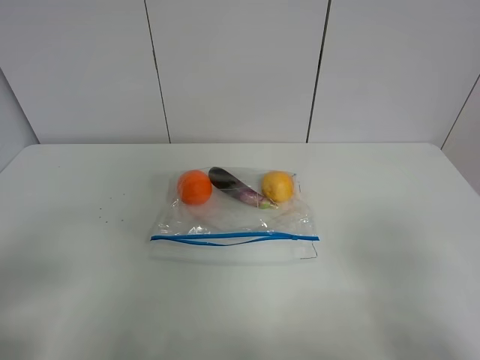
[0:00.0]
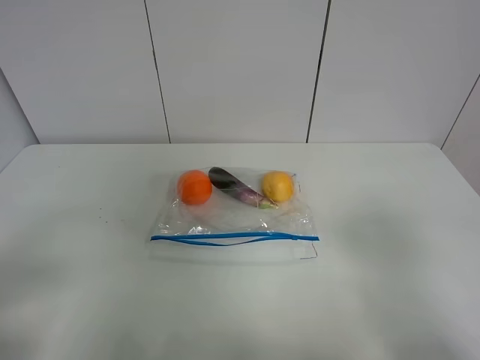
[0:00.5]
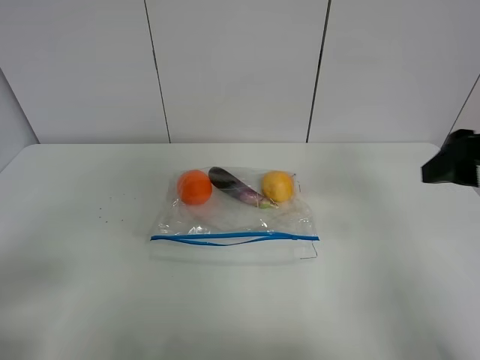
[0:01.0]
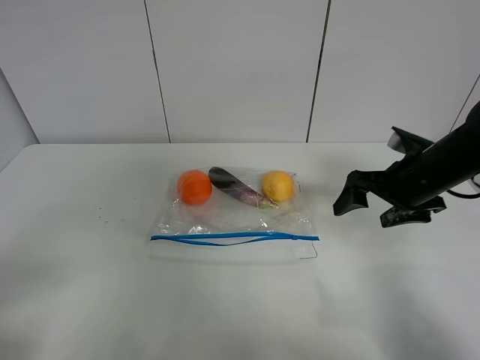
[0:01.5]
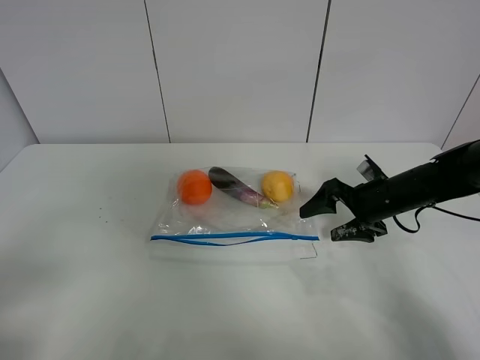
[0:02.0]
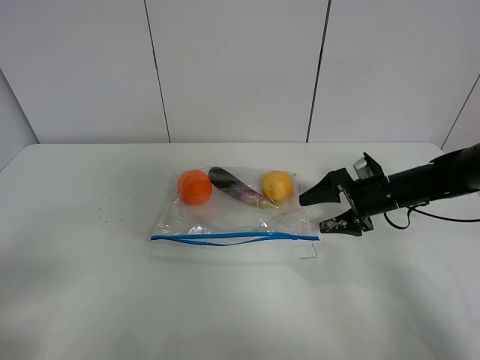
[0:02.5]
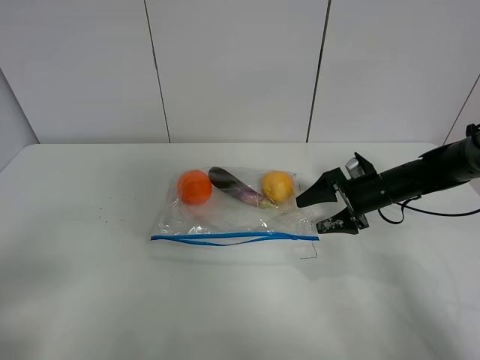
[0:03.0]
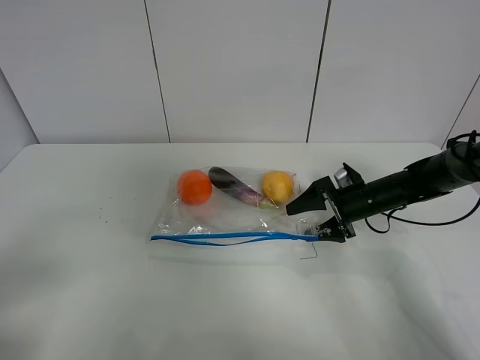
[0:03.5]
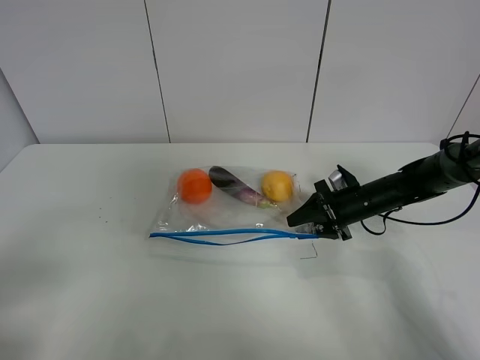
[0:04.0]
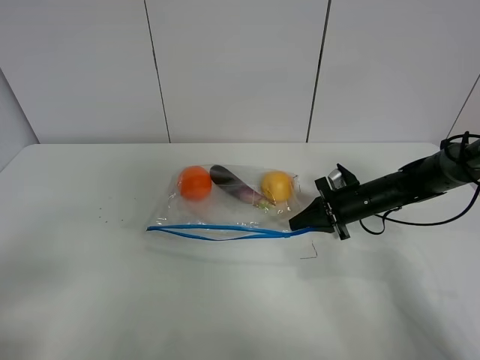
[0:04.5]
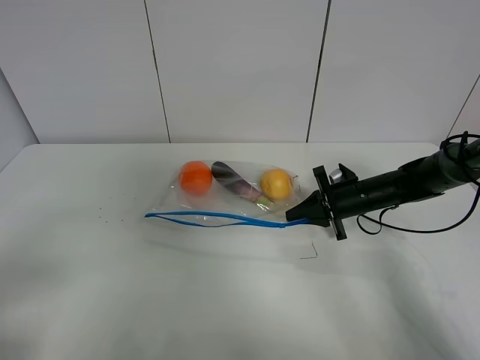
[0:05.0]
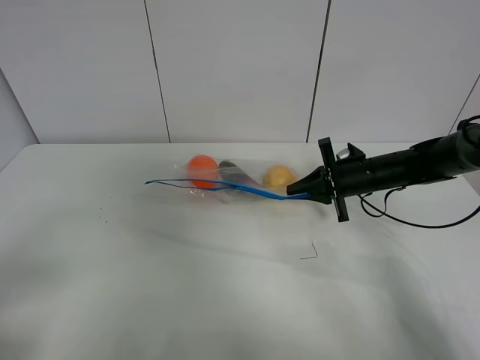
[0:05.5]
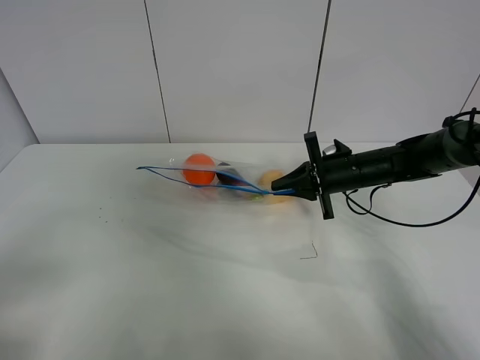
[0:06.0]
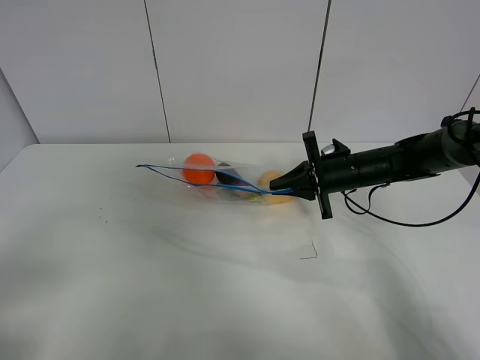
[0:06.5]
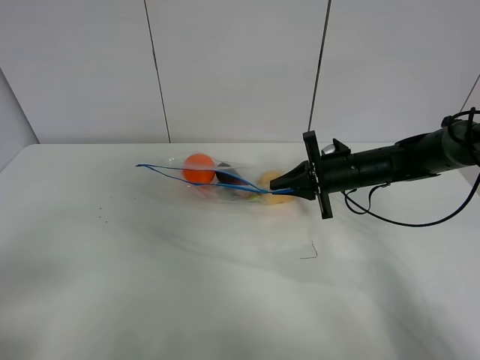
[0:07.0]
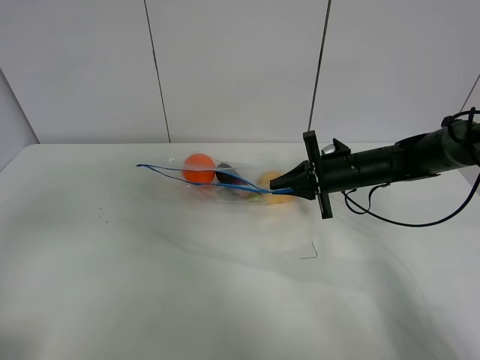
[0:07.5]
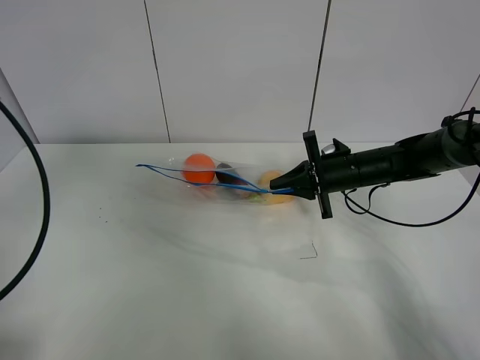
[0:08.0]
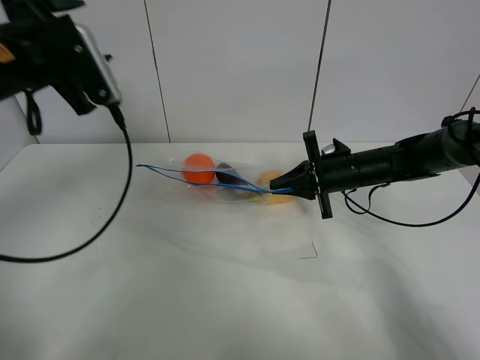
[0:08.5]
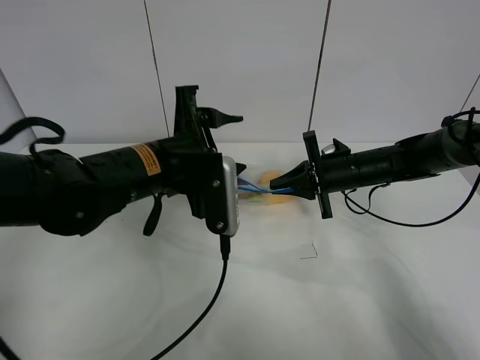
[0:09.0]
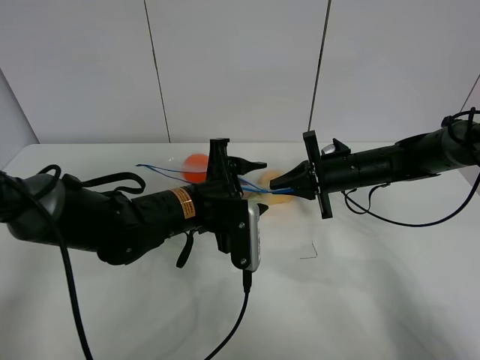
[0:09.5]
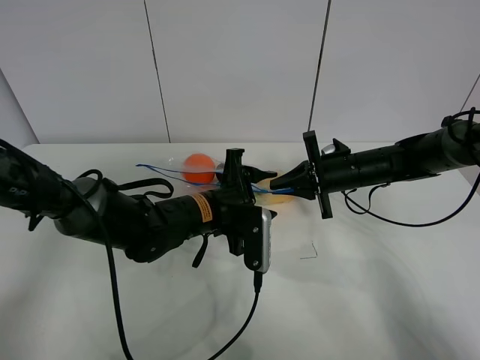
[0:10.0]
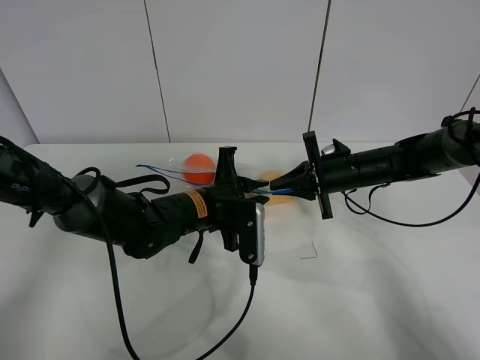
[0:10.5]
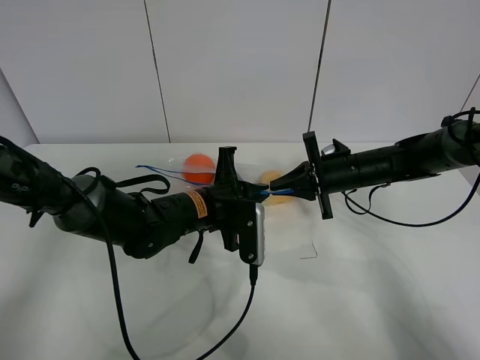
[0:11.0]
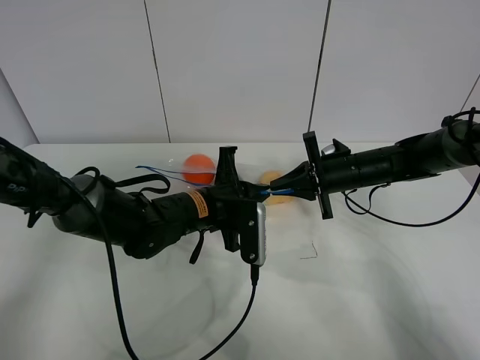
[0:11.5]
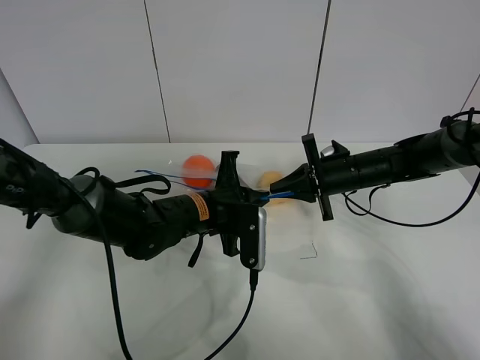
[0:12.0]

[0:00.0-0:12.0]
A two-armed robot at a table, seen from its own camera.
Step, 0:00.0 to 0:04.5: Grasp the fruit bag with right gripper.
Step, 0:05.0 to 0:06.0: Lift the fruit bag with your right gripper.
0:00.0 to 0:02.0: The right gripper is displaced forward and downward by about 35 cm.
0:02.0 to 0:04.0: The right gripper moves roughly 5 cm, and closes.
0:04.0 to 0:06.0: The right gripper travels upward by some 5 cm, and closes up.
0:06.0 to 0:08.0: The left gripper is displaced forward and upward by about 25 cm.
0:08.0 to 0:10.0: The left gripper heads to the right and downward, covering roughly 35 cm.
0:10.0 to 0:12.0: The left gripper closes.

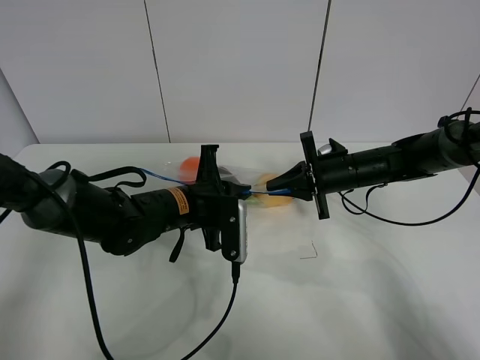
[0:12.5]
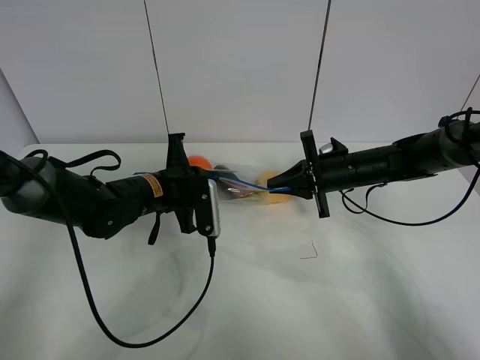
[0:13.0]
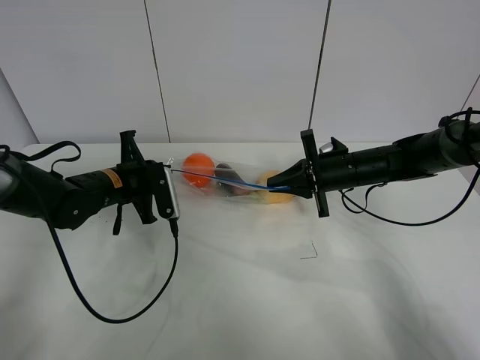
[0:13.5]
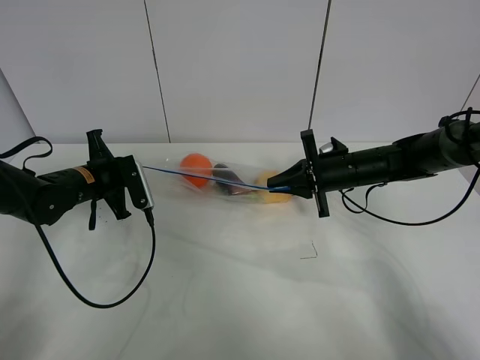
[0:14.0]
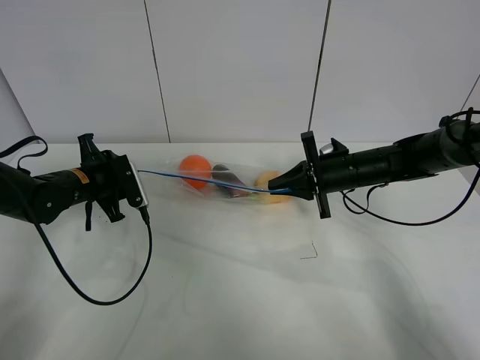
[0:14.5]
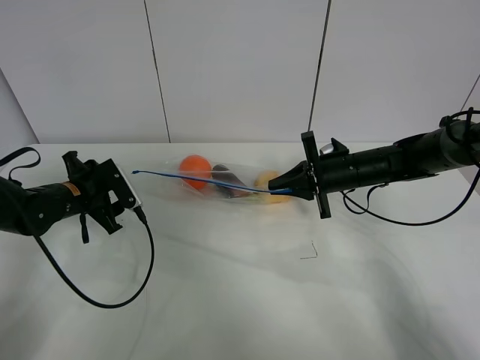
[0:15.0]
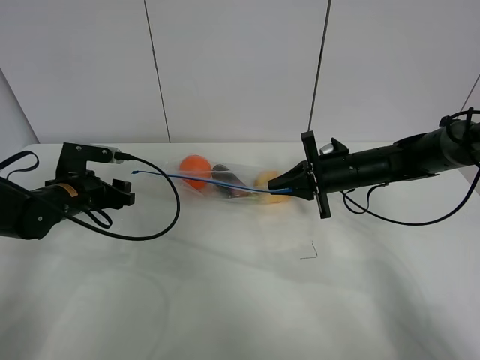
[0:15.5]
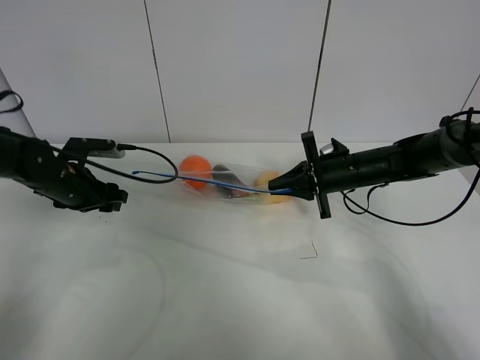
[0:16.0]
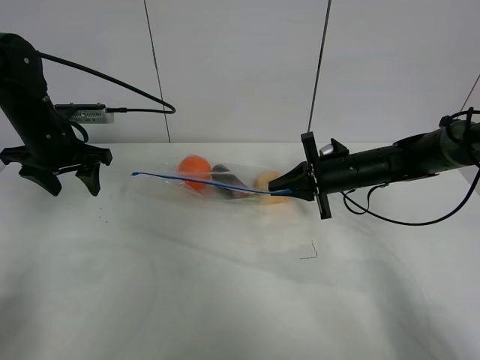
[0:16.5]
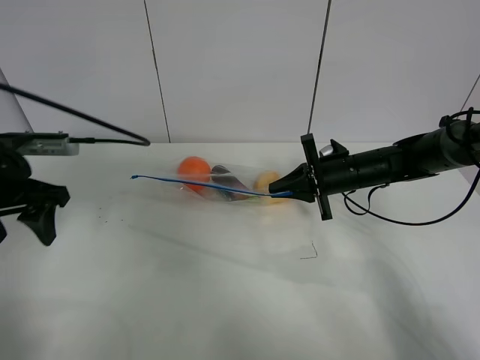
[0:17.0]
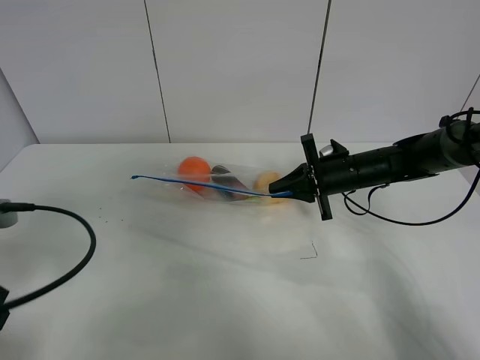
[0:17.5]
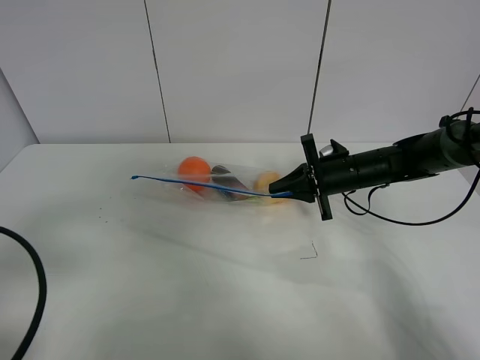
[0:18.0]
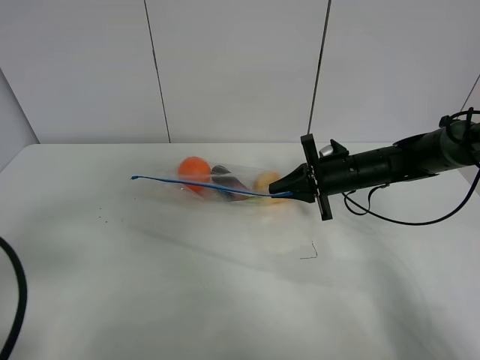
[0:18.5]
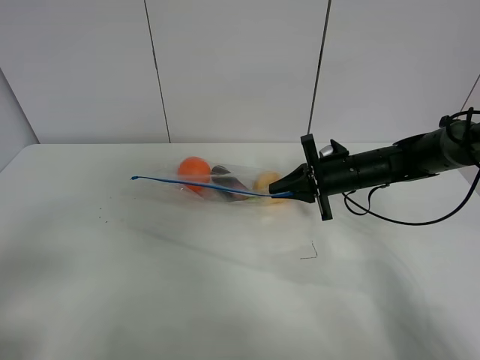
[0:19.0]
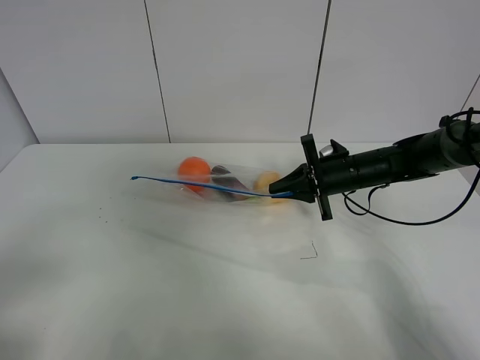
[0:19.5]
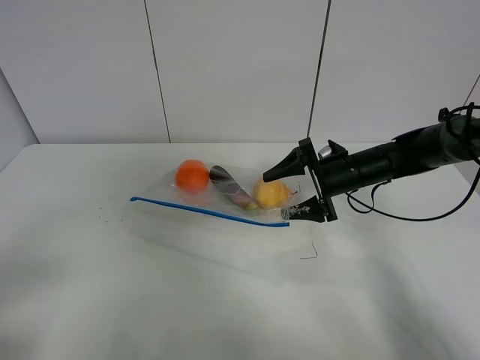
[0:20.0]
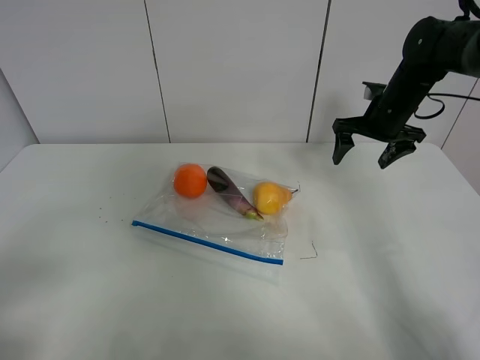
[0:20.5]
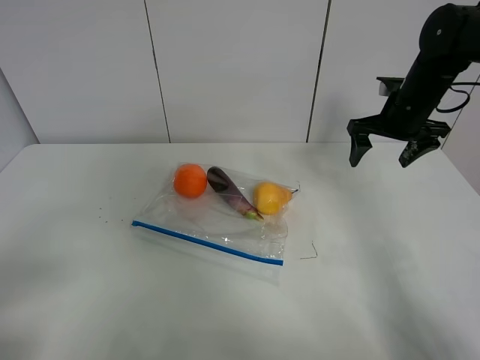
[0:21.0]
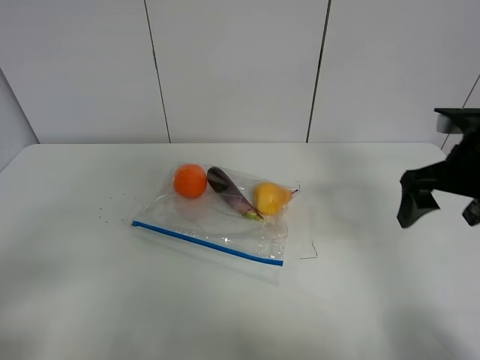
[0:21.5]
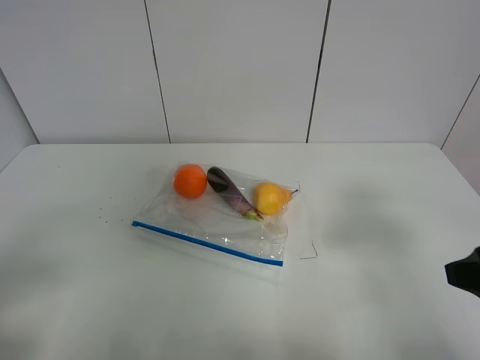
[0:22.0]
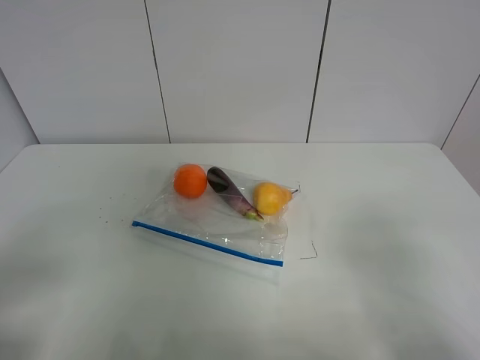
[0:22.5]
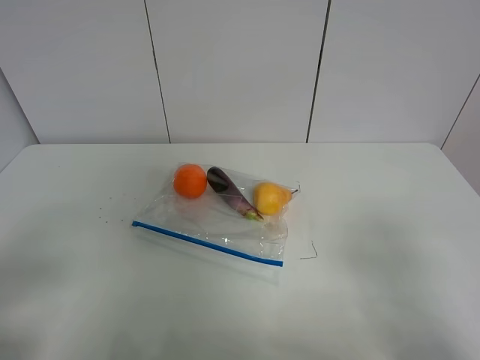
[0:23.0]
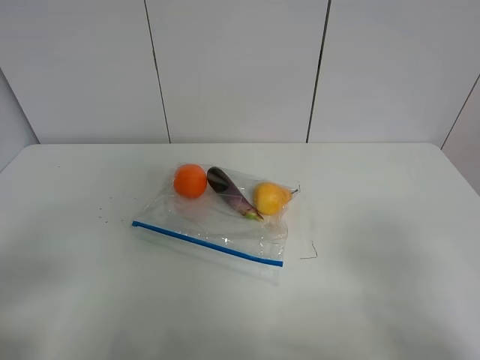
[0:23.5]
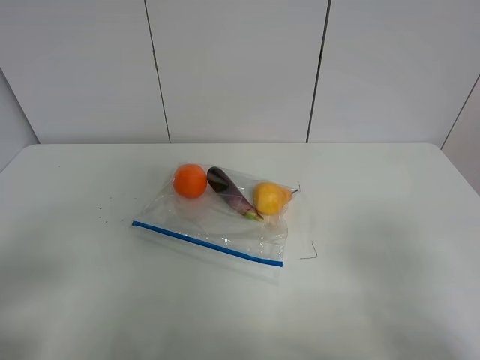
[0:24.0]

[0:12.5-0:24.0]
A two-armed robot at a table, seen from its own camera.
Step, 0:12.5 to 0:14.5: Pull the fruit bag with left gripper.
0:12.5 to 0:14.5: The left gripper is displaced to the left by approximately 20 cm, and opens its fingers.
0:14.5 to 0:16.5: The left gripper heads upward, covering approximately 10 cm.
0:16.5 to 0:18.5: The left gripper heads backward, covering roughly 30 cm.
0:18.5 to 0:20.0: The left gripper goes approximately 5 cm backward. Meanwhile the right gripper opens up.
0:20.0 to 0:22.0: The right gripper goes roughly 30 cm backward and upward.
0:22.0 to 0:24.0: The right gripper shifts roughly 10 cm backward.

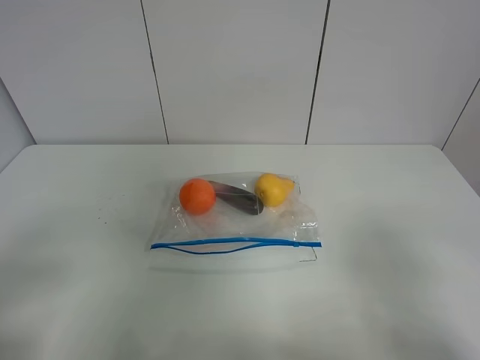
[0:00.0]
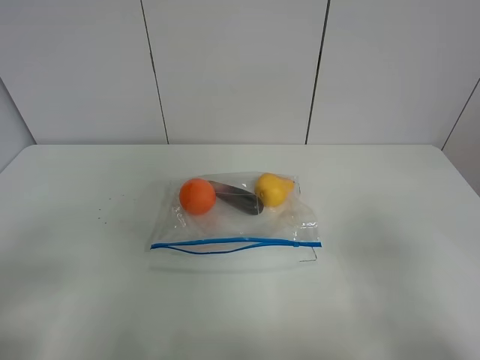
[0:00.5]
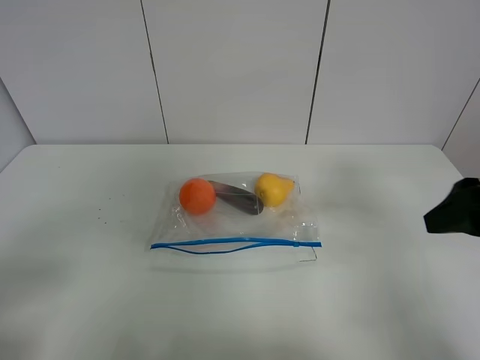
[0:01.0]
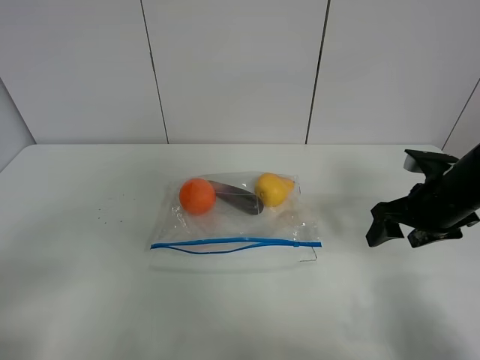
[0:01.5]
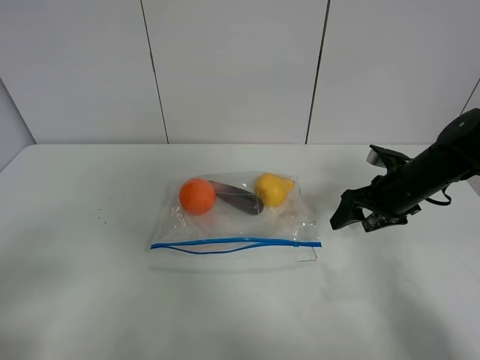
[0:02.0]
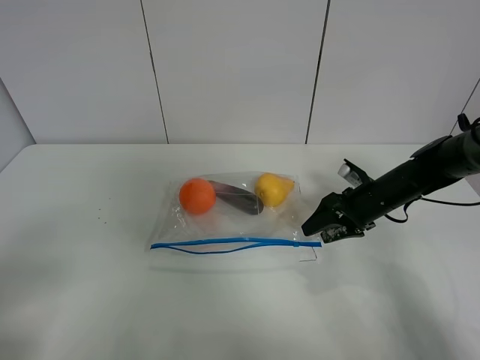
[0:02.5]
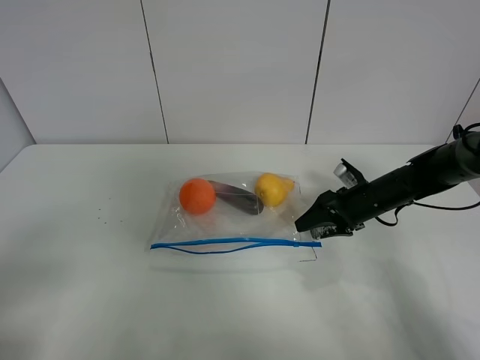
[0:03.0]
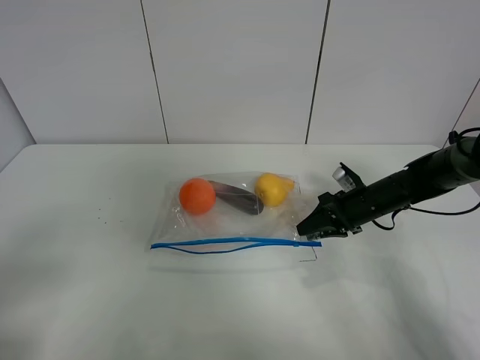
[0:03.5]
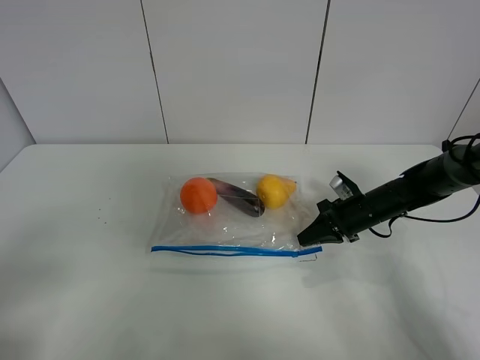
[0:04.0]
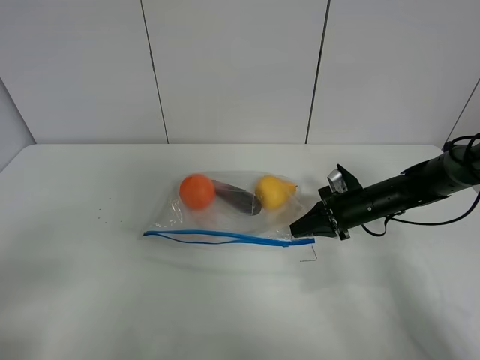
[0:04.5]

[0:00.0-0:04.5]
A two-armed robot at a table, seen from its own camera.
Step, 0:00.0 to 0:04.0: Grasp the fruit bag with right gripper.
0:00.0 to 0:02.0: The right gripper heads forward, covering some 35 cm.
0:02.0 to 0:04.5: The right gripper shifts some 5 cm downward, and closes.
